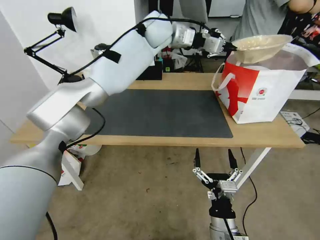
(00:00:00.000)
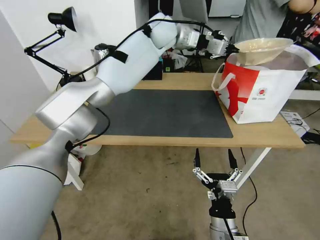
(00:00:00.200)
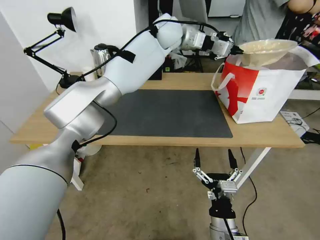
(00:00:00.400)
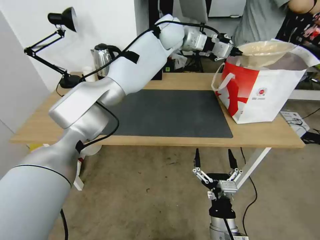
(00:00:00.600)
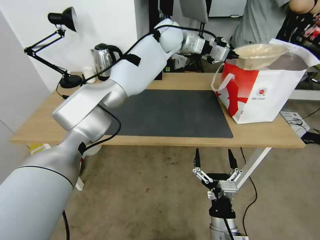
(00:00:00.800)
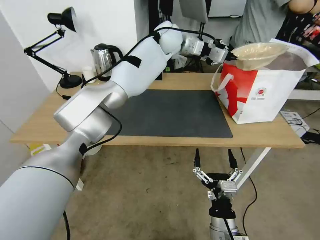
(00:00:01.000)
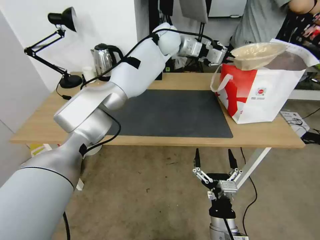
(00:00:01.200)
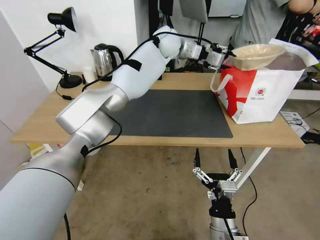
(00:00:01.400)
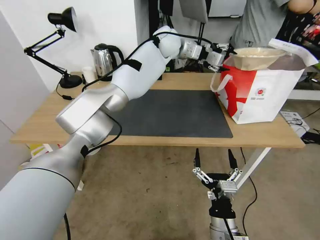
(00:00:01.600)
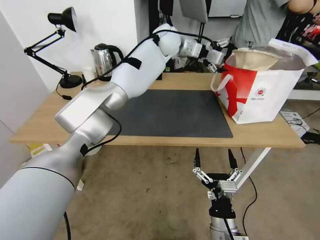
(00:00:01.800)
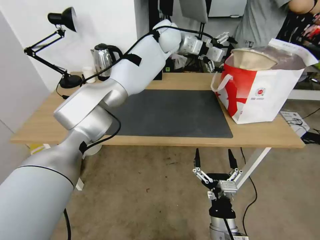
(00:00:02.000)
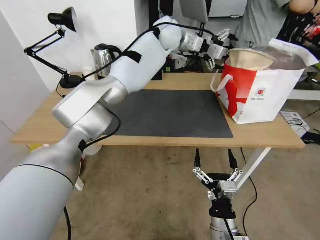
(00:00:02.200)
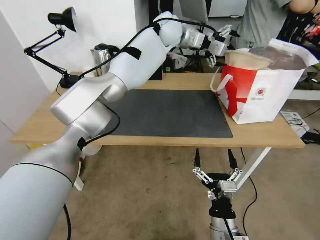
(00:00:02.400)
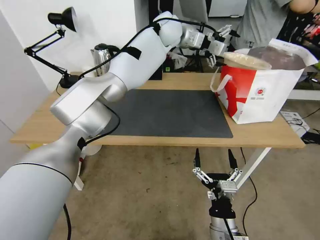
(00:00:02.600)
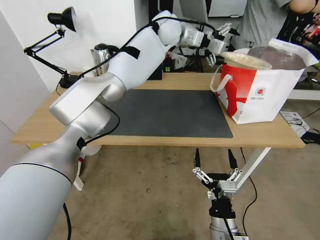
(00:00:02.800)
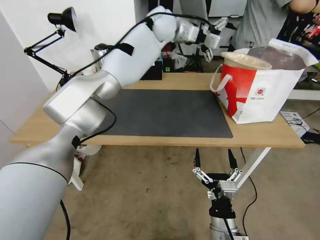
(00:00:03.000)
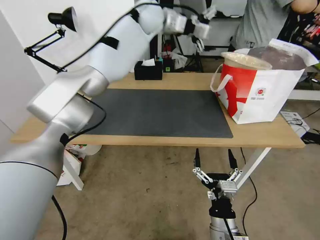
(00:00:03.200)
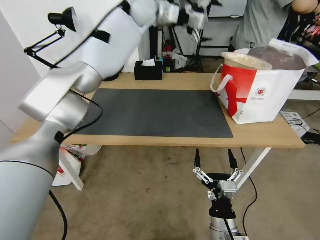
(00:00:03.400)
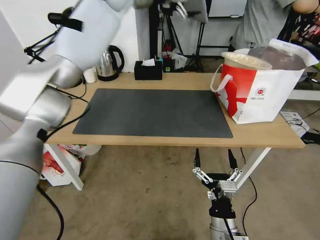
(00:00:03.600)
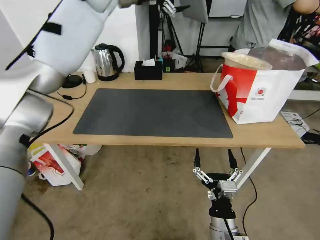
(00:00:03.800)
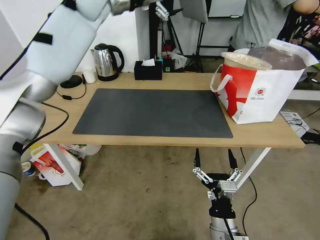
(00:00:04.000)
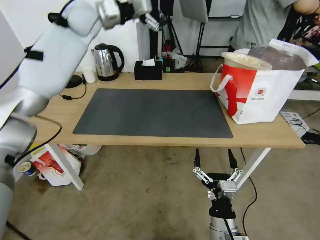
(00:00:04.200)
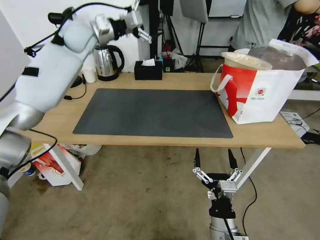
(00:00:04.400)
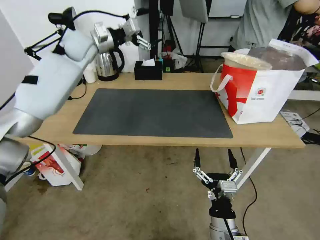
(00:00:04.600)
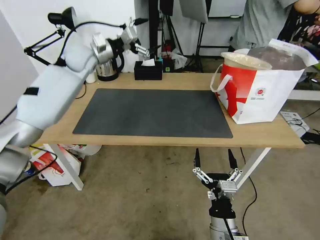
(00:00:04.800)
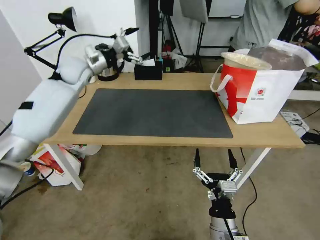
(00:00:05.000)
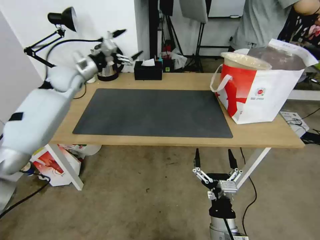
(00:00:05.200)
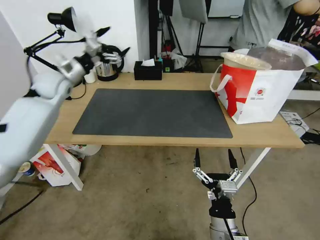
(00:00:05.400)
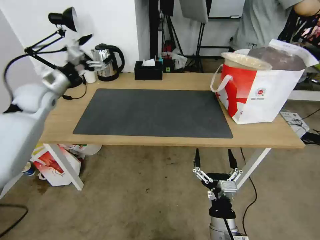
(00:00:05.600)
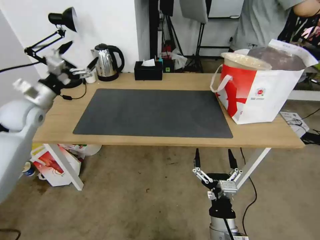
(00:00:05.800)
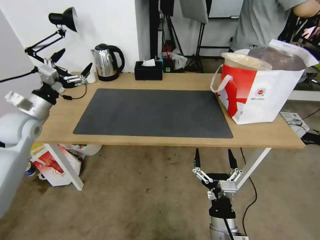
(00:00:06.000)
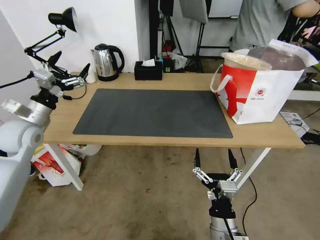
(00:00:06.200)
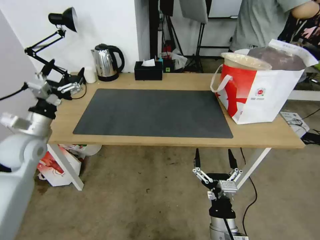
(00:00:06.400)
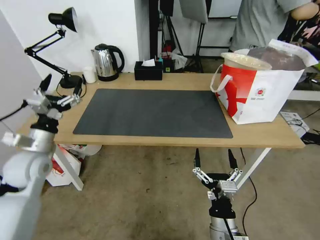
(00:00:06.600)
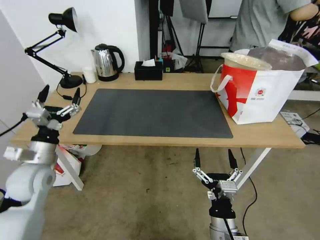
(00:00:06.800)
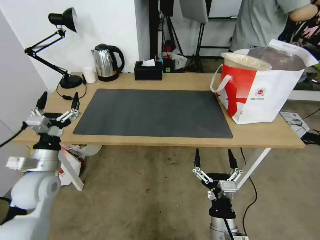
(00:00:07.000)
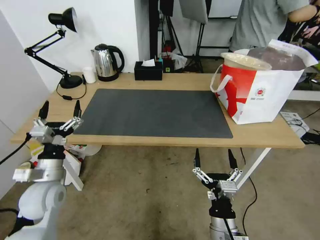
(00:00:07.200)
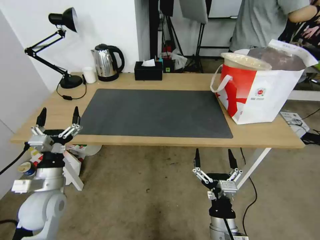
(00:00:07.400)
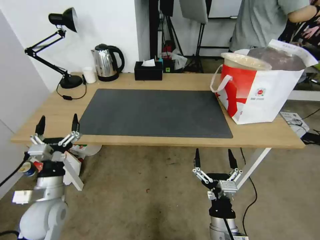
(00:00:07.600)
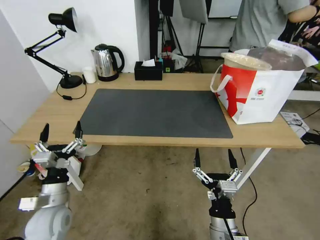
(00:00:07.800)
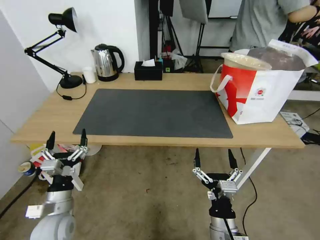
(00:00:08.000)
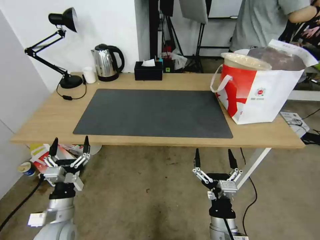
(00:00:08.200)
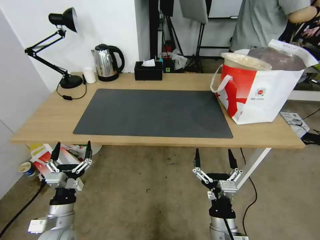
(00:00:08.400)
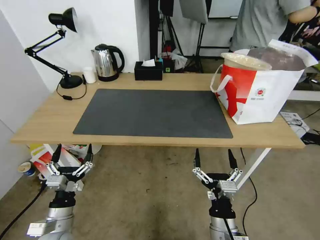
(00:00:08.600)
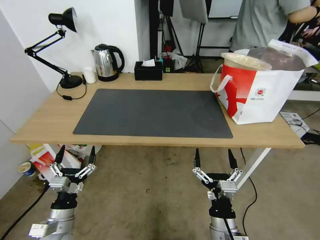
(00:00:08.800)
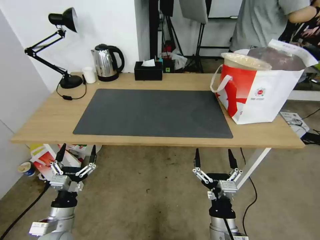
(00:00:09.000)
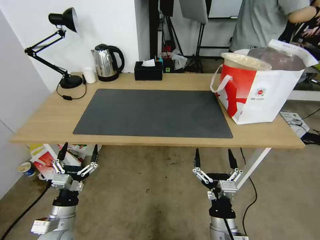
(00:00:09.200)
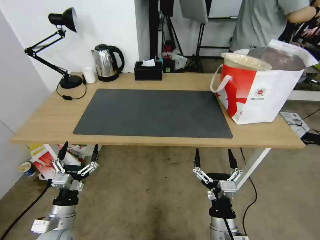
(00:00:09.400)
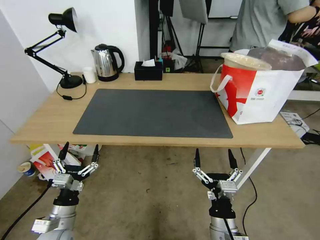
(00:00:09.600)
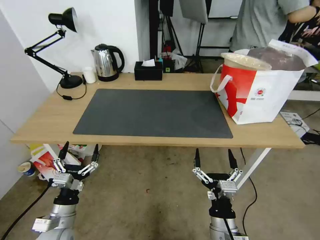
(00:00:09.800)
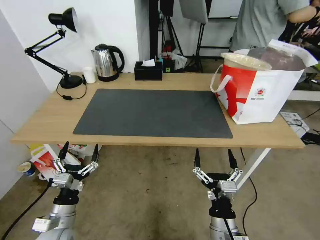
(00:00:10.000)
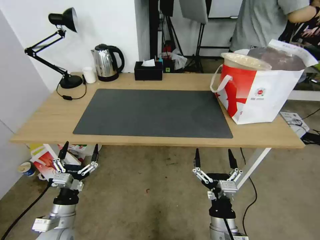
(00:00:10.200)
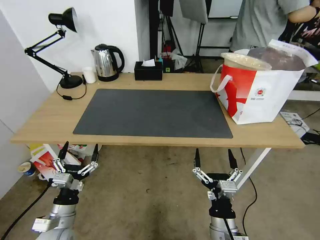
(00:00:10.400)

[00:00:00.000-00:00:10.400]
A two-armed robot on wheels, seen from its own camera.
Task of the whole recording: Pick up the trash from the table and place it into the takeout bag.
00:00:00.000 to 00:00:01.400: The left gripper shifts by roughly 5 cm.
00:00:01.400 to 00:00:03.000: The left gripper travels upward by approximately 5 cm, and opens.
00:00:03.000 to 00:00:04.400: The left gripper travels to the left by approximately 25 cm.
00:00:04.400 to 00:00:06.000: The left gripper shifts roughly 30 cm backward, downward and to the left.
00:00:06.000 to 00:00:07.400: The left gripper travels backward, downward and to the right by approximately 20 cm.
00:00:07.400 to 00:00:09.000: The left gripper moves downward and backward, approximately 10 cm.
00:00:09.000 to 00:00:10.400: Neither gripper changes place.

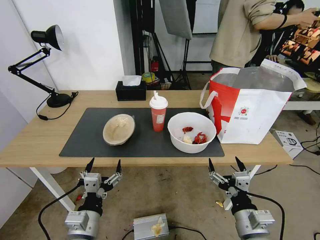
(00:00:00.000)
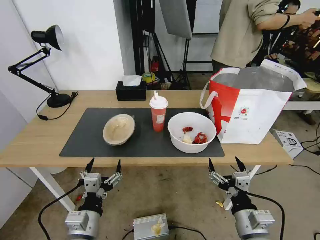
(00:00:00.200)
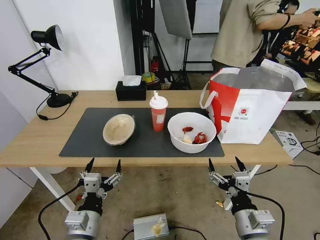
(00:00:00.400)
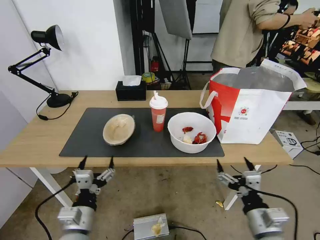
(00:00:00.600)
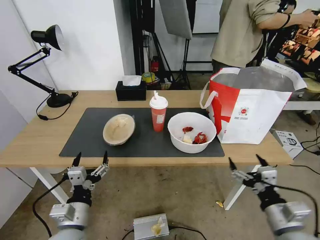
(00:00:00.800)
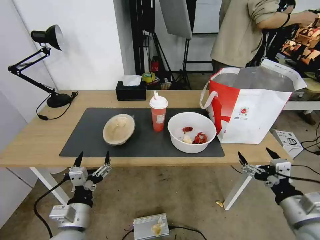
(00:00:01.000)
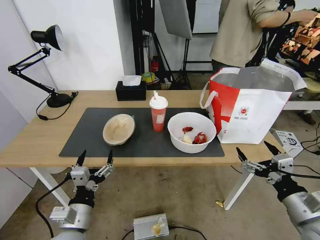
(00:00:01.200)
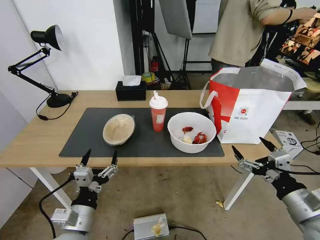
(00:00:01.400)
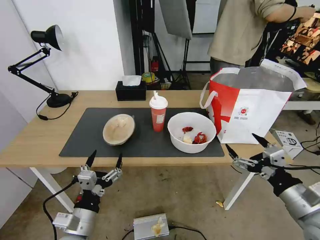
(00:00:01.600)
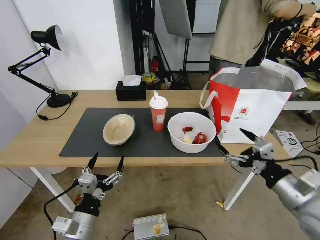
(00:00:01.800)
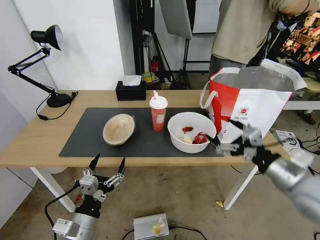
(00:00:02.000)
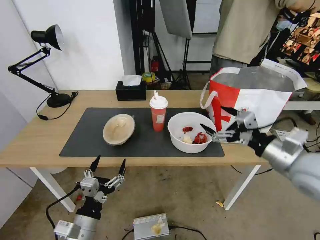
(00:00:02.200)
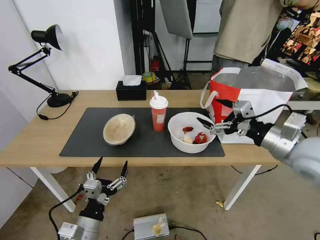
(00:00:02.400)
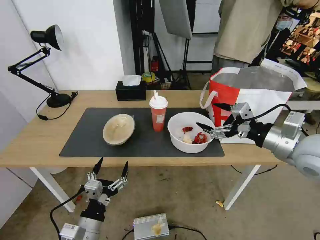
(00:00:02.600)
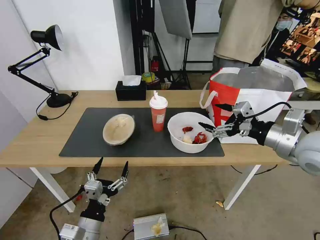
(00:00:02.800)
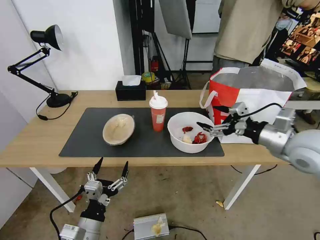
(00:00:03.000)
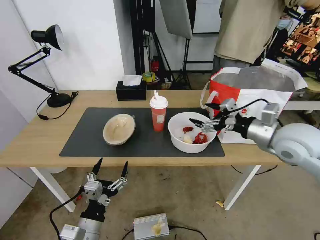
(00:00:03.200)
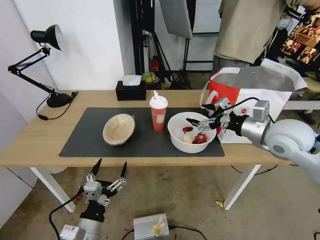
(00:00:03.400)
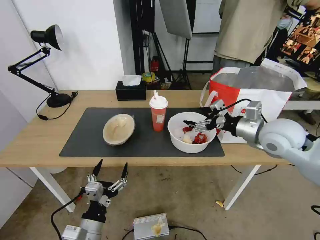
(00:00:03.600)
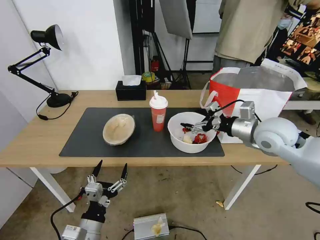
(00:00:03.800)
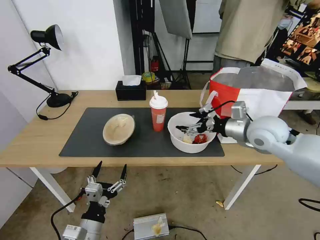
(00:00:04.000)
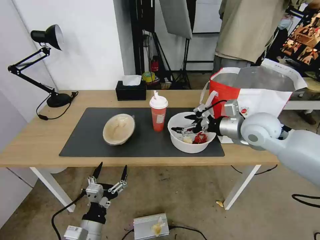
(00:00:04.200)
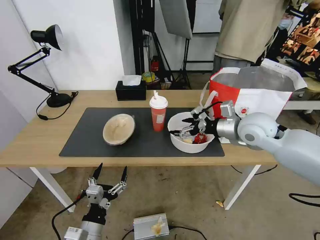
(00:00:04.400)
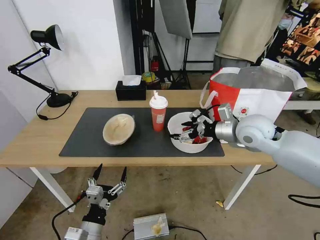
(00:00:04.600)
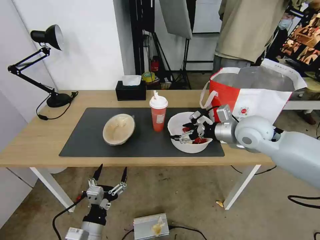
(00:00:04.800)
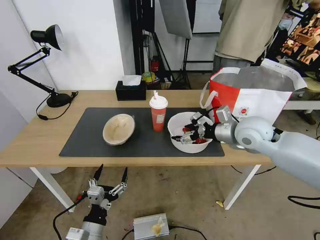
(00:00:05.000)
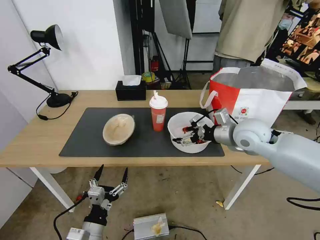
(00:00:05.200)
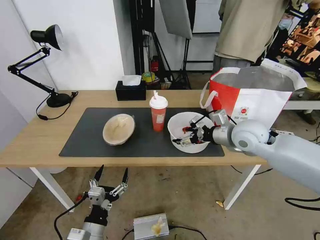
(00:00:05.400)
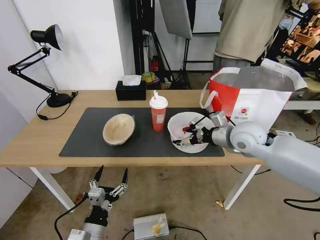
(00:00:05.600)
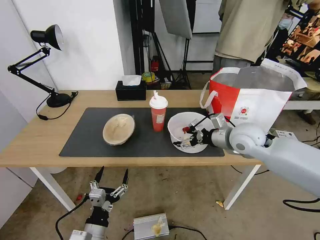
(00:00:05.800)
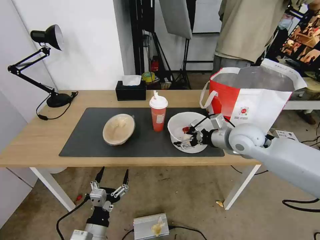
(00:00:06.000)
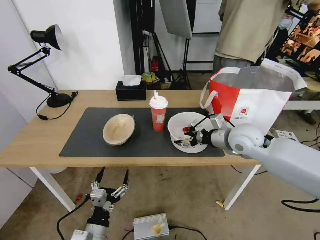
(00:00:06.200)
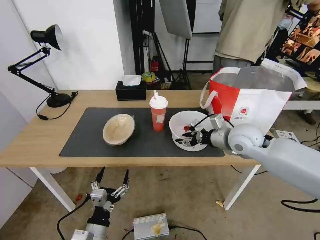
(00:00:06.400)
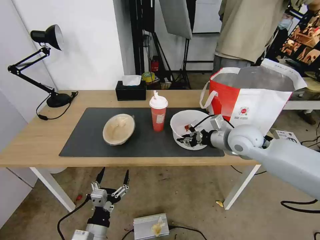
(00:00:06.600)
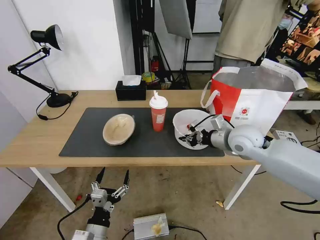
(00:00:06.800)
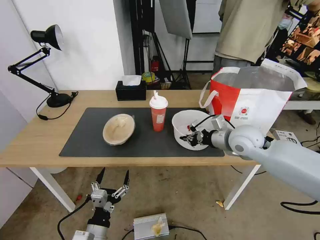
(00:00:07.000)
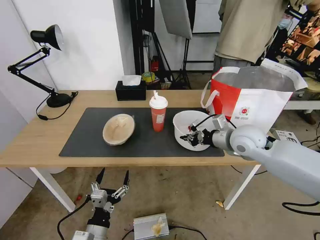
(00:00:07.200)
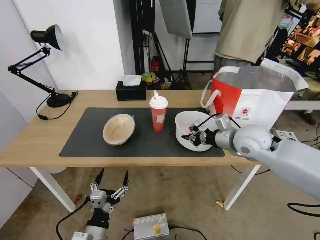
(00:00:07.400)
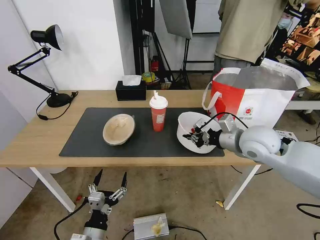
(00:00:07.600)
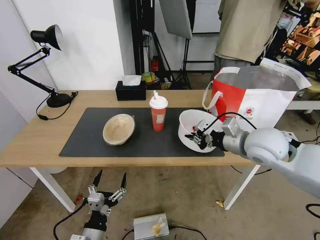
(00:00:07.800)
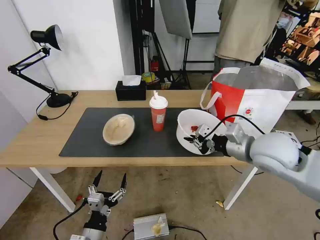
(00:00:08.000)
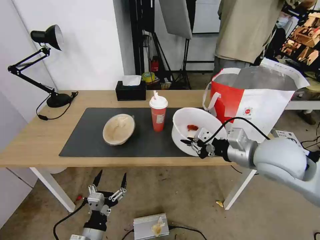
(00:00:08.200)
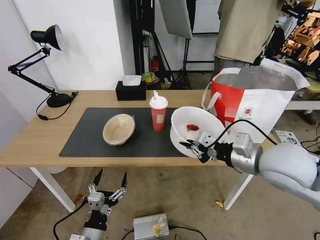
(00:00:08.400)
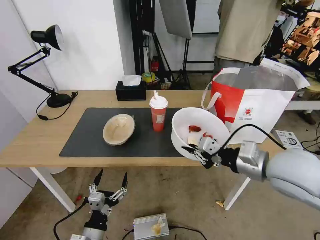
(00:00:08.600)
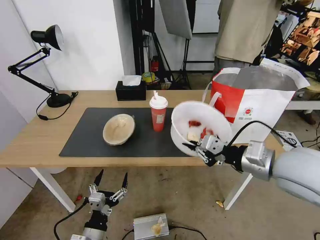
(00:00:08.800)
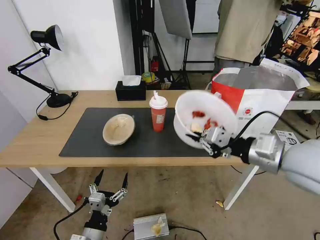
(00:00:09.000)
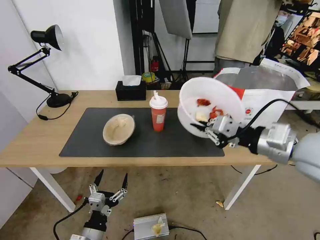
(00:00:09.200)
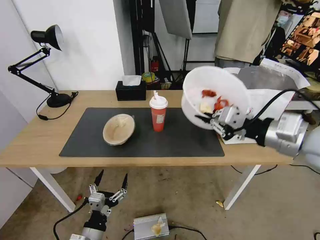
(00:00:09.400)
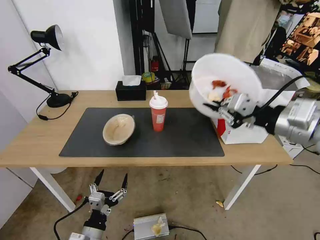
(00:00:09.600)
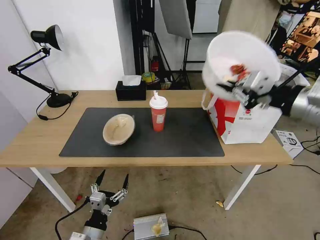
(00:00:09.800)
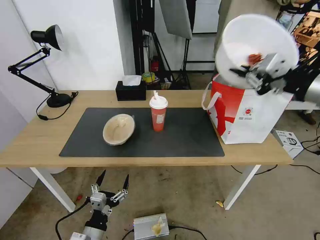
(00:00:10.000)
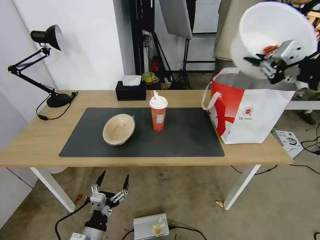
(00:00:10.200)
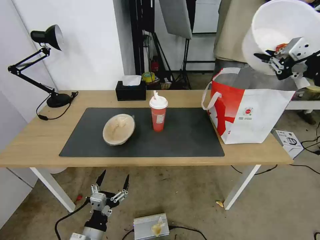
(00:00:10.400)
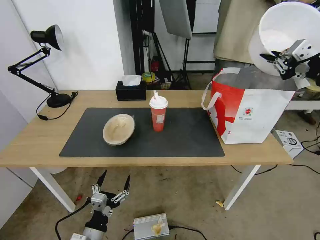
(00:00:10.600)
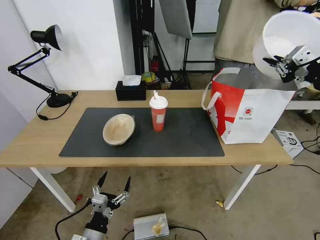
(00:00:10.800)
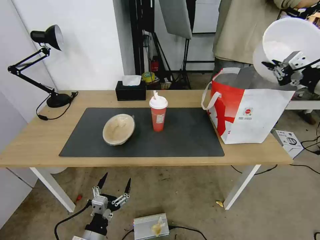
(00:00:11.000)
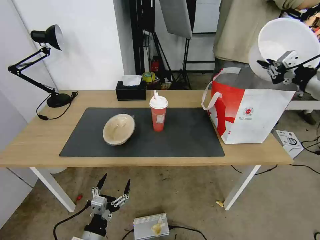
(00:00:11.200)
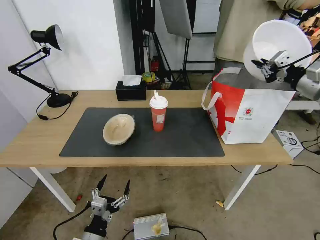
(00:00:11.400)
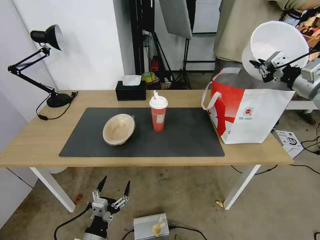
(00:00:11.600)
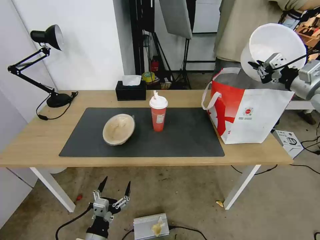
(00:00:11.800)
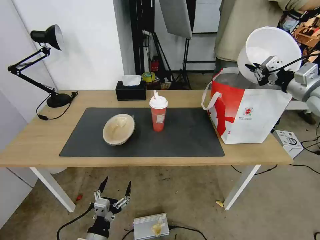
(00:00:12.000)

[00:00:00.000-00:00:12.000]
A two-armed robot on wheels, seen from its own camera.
Task of the whole recording: Pick up the trash from the table and place it into the takeout bag.
00:00:01.600 to 00:00:03.000: The right gripper goes about 20 cm forward and upward.
00:00:03.000 to 00:00:04.400: The right gripper heads forward and to the left, covering some 10 cm.
00:00:04.400 to 00:00:06.000: The grippers move only a little.
00:00:06.000 to 00:00:07.600: The right gripper closes its fingers.
00:00:07.600 to 00:00:09.000: The right gripper goes about 15 cm backward and upward.
00:00:09.000 to 00:00:10.400: The right gripper goes about 20 cm to the right, upward and forward.
00:00:10.400 to 00:00:12.000: The right gripper moves forward and downward, some 15 cm.
